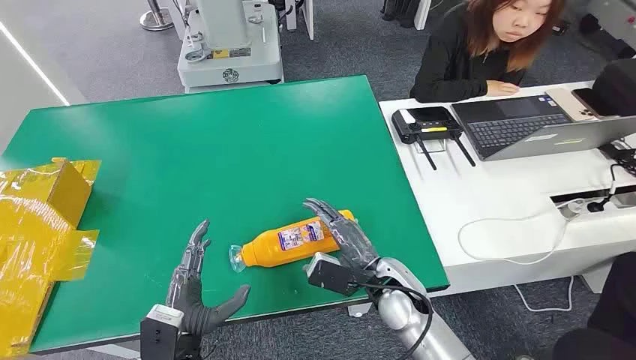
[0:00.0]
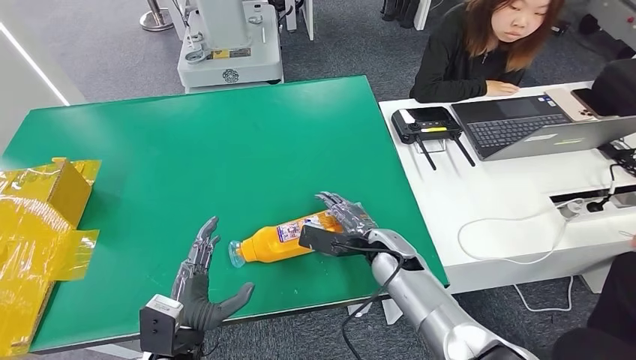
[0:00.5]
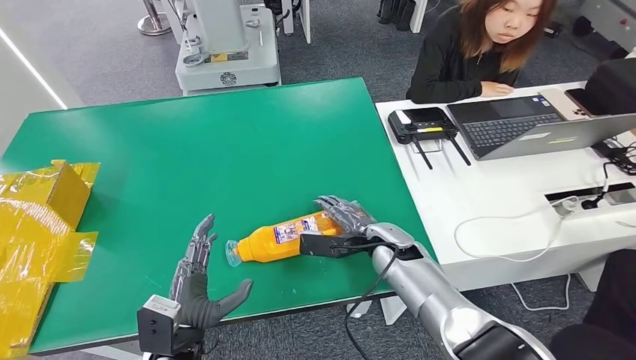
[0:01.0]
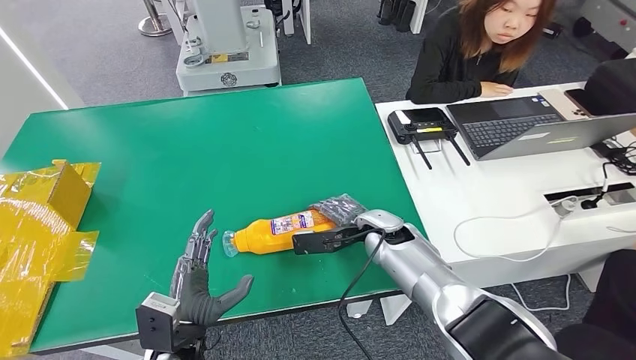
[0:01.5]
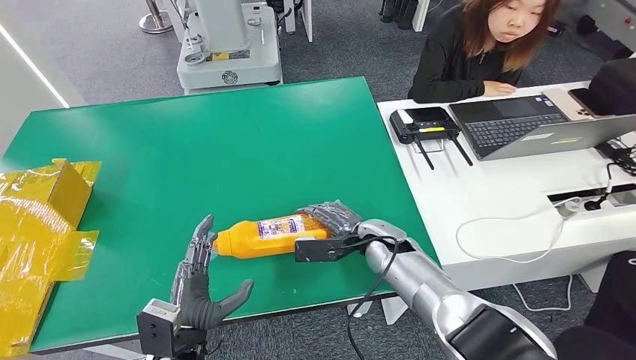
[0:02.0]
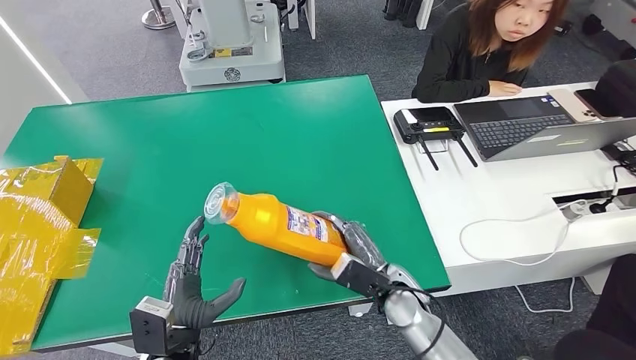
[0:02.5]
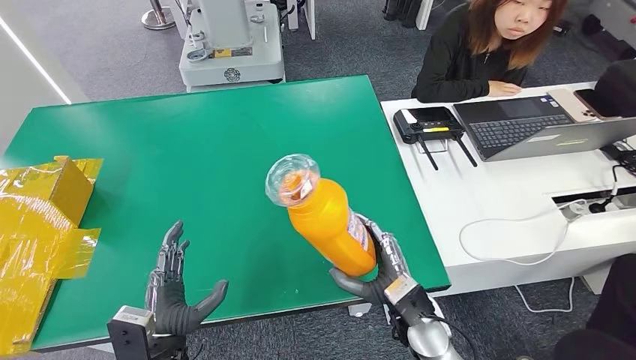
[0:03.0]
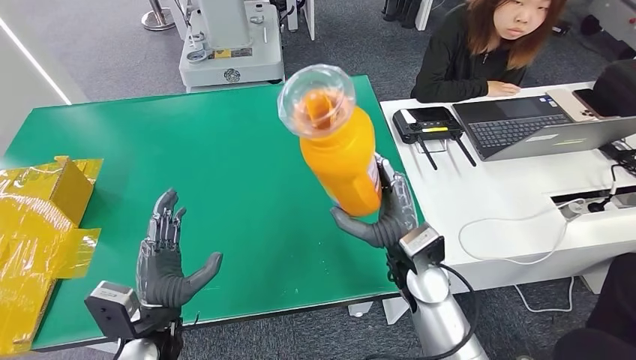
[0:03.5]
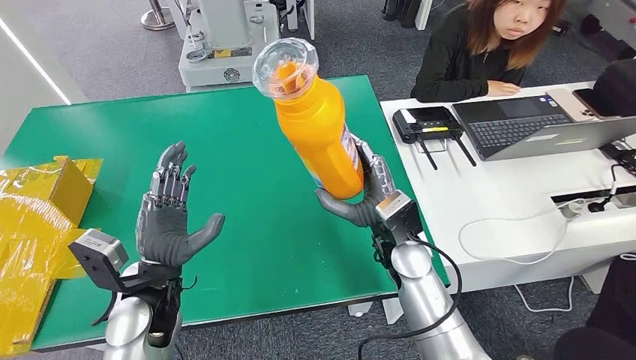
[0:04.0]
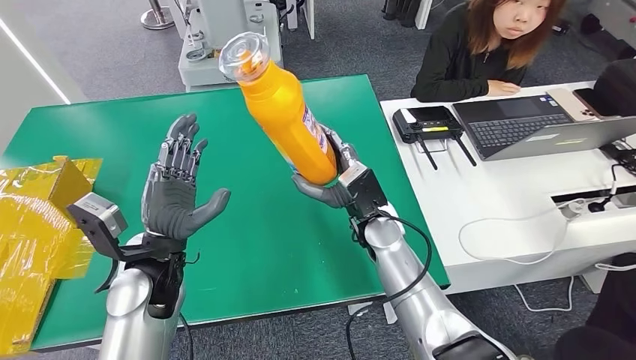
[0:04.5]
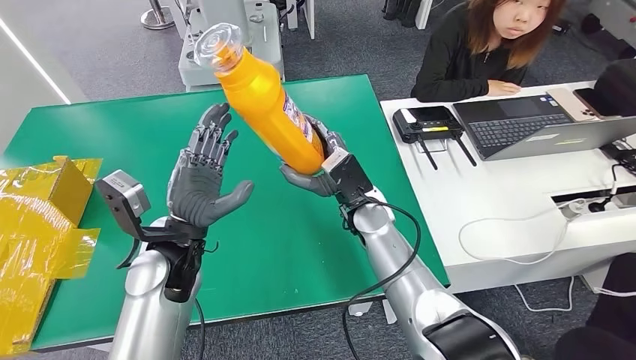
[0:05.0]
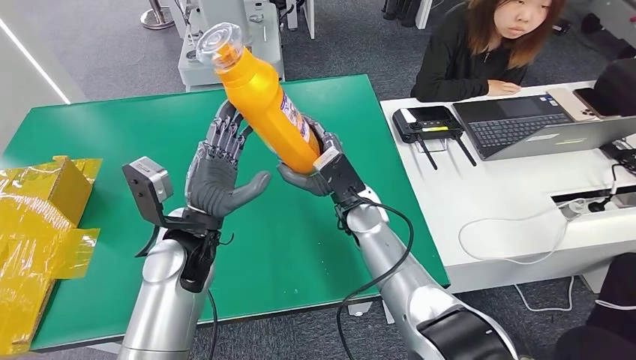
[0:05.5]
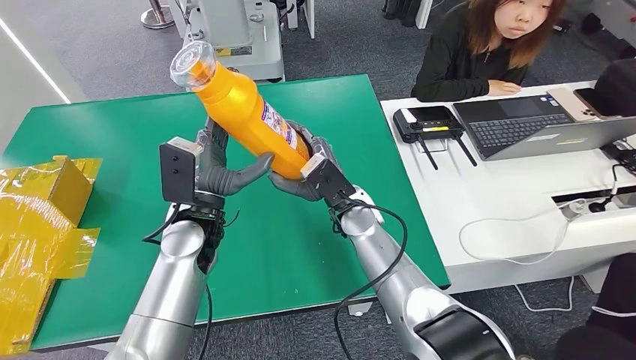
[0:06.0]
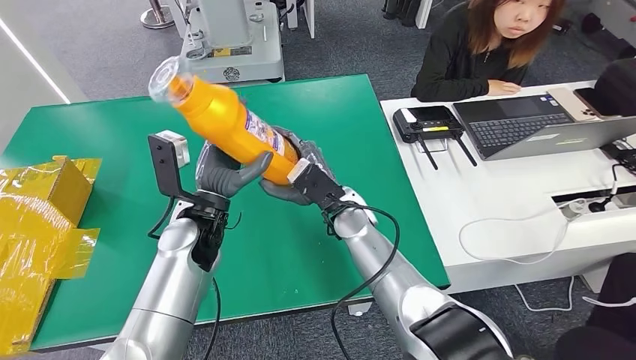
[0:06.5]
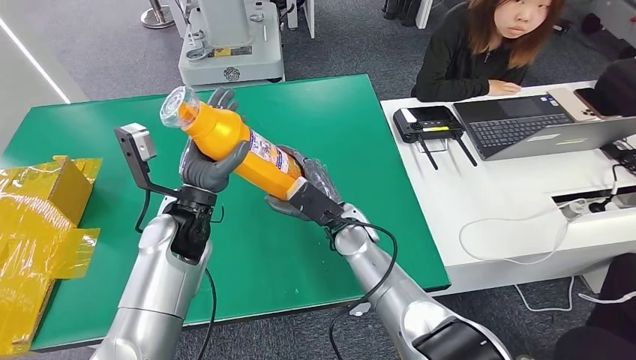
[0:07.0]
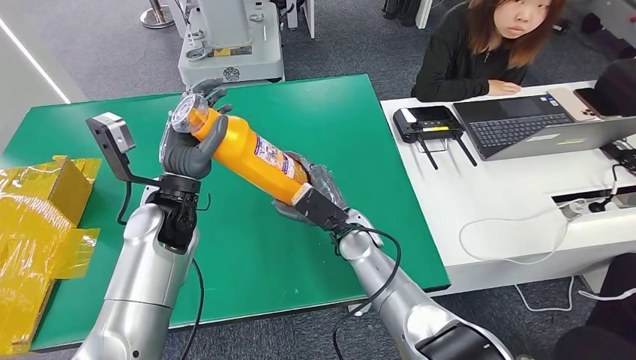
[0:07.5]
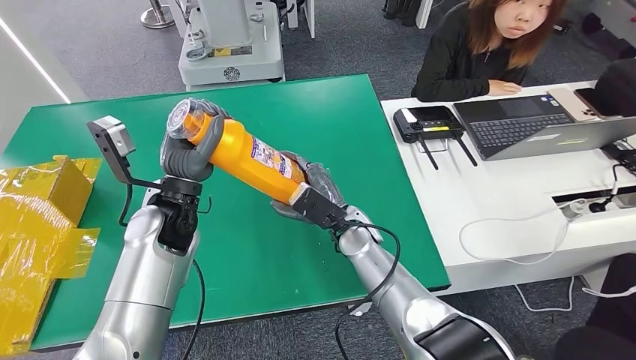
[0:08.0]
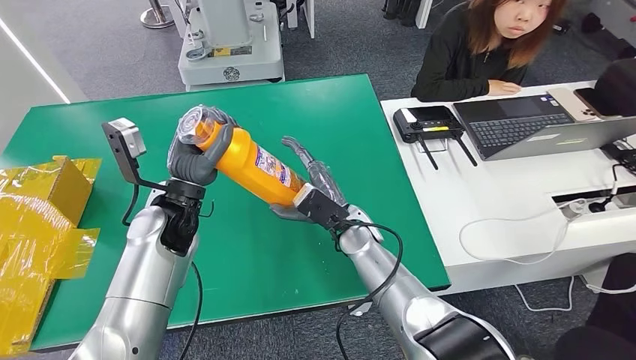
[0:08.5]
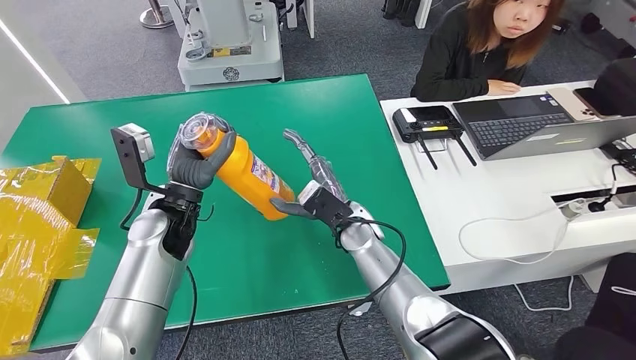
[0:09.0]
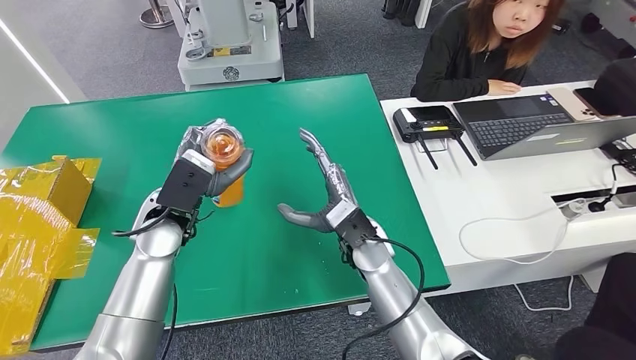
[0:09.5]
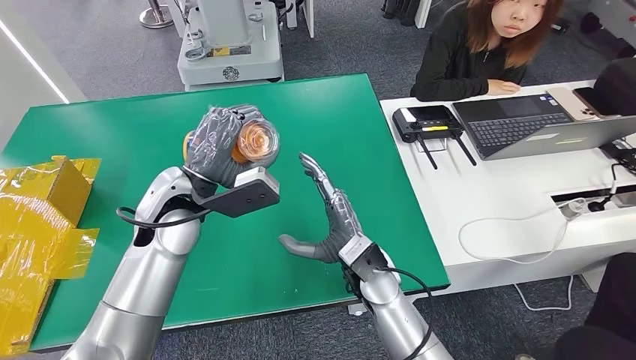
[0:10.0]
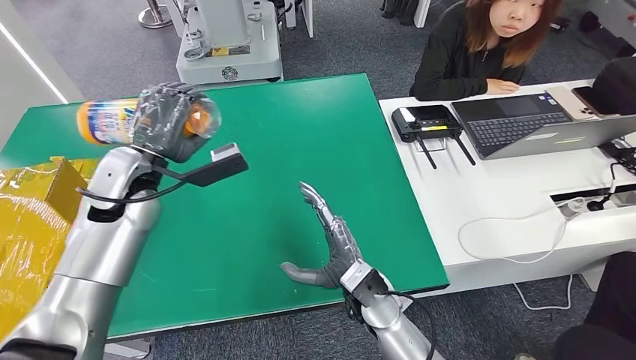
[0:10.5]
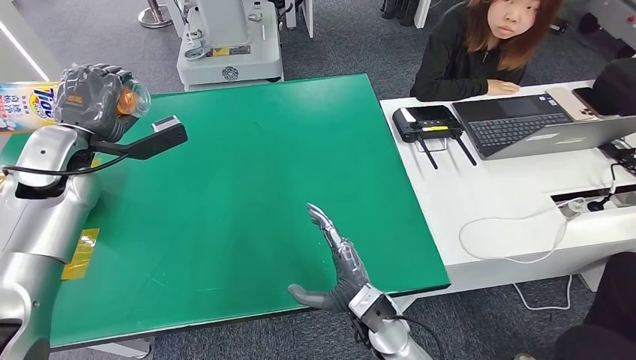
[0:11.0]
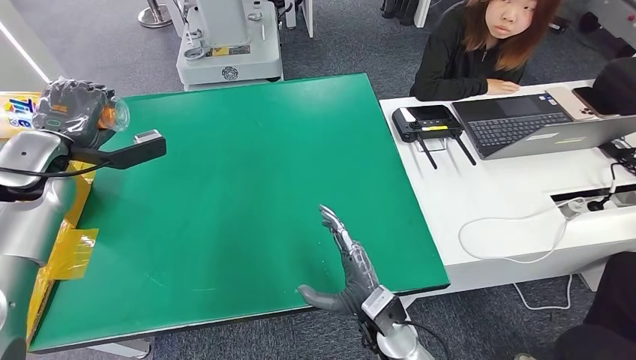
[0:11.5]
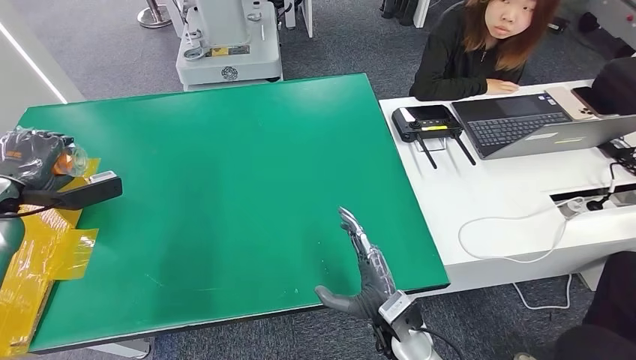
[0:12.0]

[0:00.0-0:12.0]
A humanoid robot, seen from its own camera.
Step, 0:00.0 to 0:03.0: Pick up the bottle from the table.
0:08.0 to 0:10.0: The right hand shifts roughly 5 cm backward.
0:10.0 to 0:12.0: The right hand moves backward and downward, some 10 cm, while the left hand heads to the left, covering approximately 30 cm.

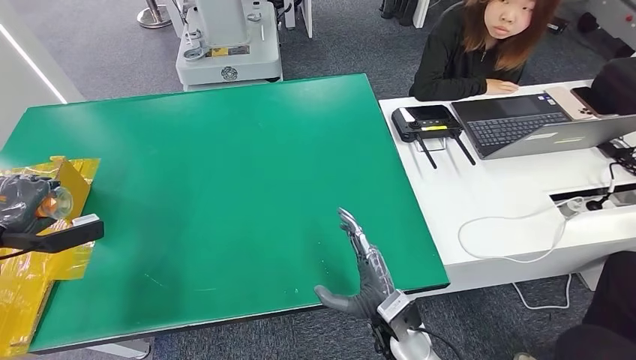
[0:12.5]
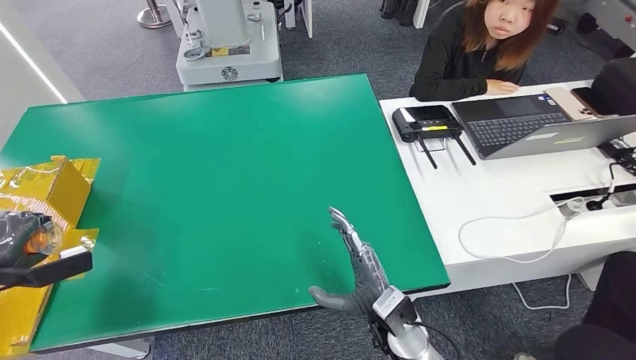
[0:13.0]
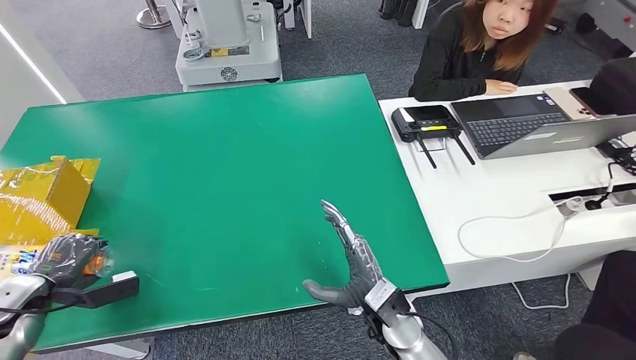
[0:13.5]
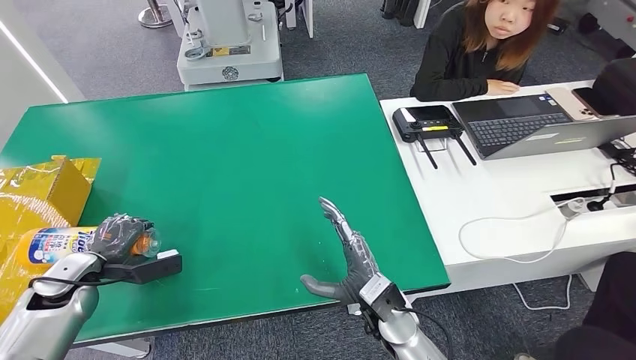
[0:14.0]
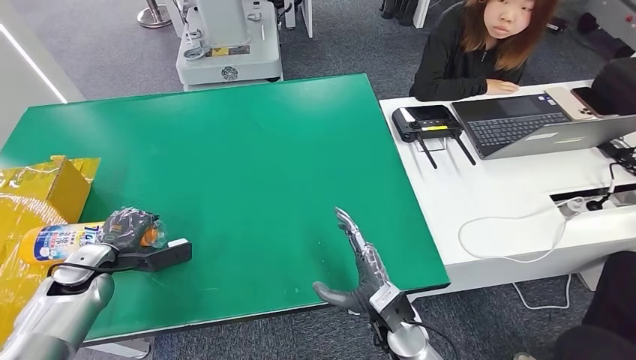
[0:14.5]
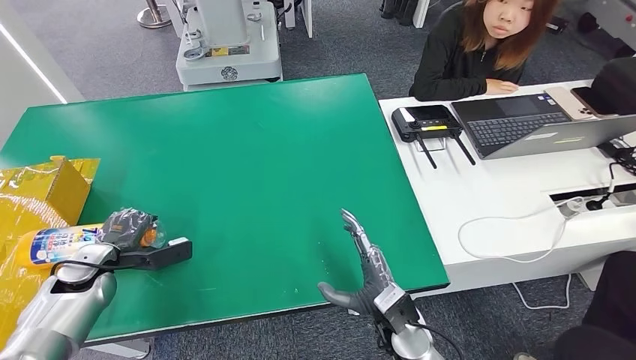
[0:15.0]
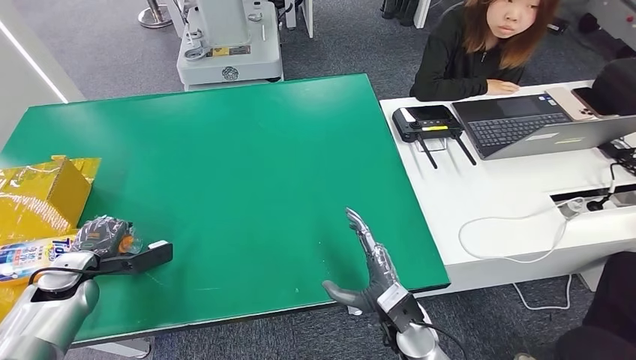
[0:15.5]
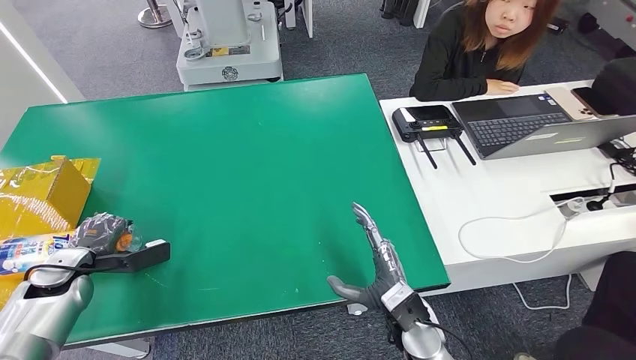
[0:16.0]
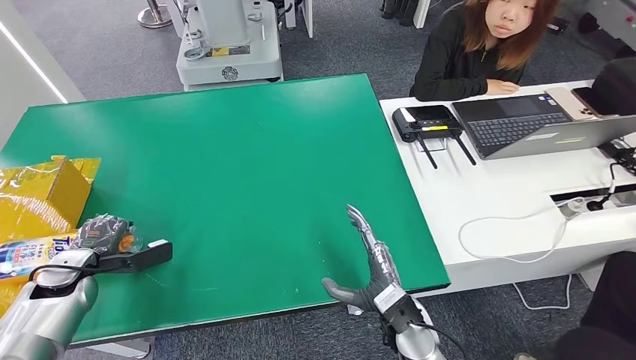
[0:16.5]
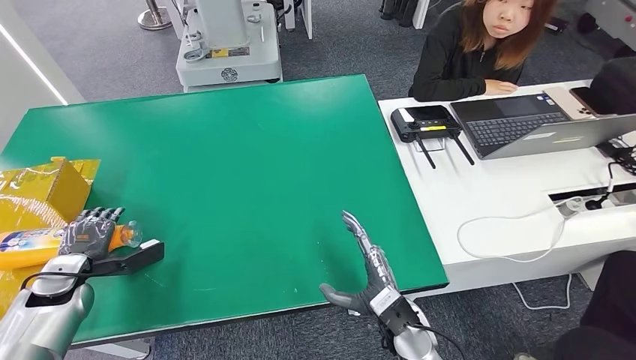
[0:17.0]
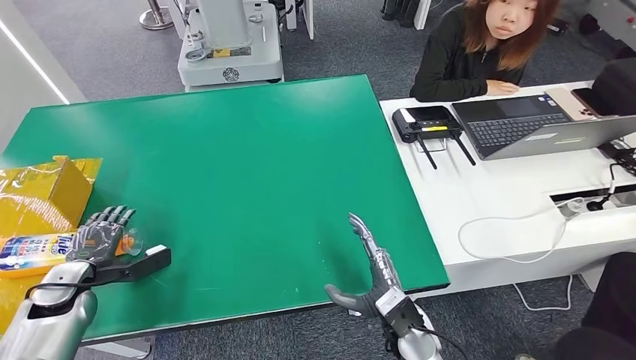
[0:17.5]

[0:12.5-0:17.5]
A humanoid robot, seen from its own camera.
Step, 0:12.5 to 0:17.5: Turn the bottle to the front side.
0:12.5 to 0:15.0: The left hand shifts about 15 cm to the right and downward.
0:15.0 to 0:17.5: The hands move only a little.

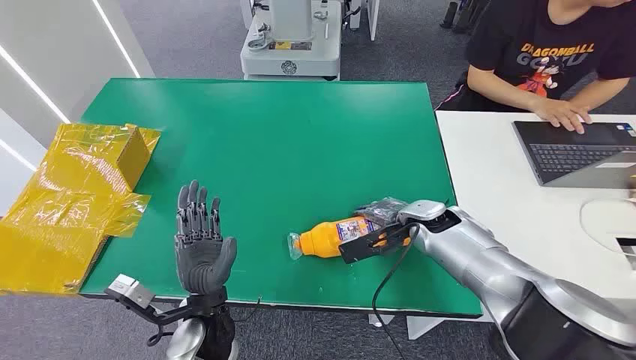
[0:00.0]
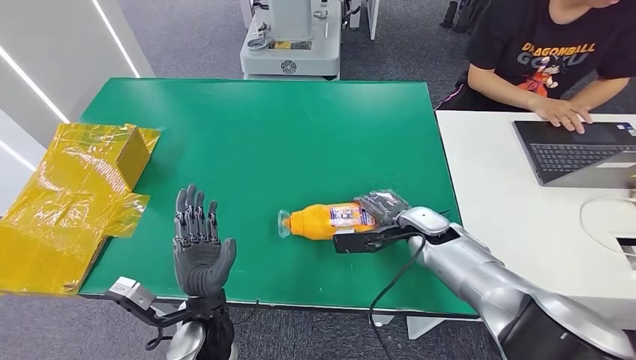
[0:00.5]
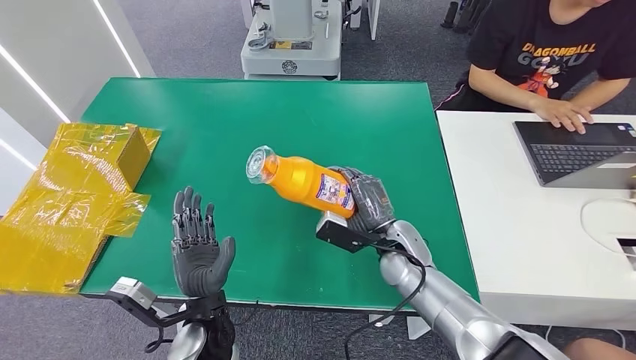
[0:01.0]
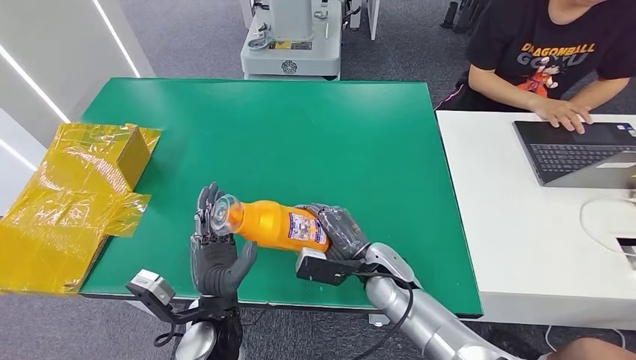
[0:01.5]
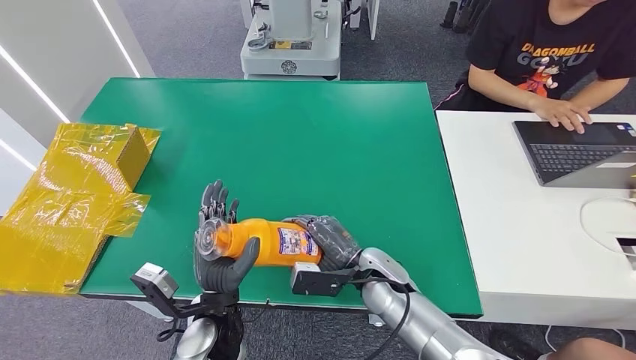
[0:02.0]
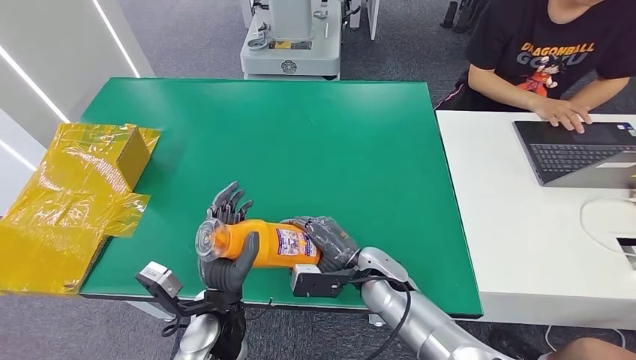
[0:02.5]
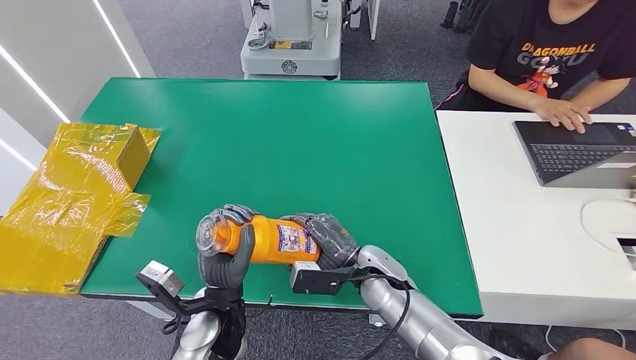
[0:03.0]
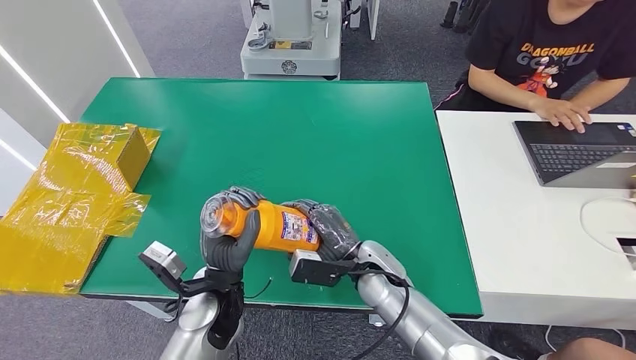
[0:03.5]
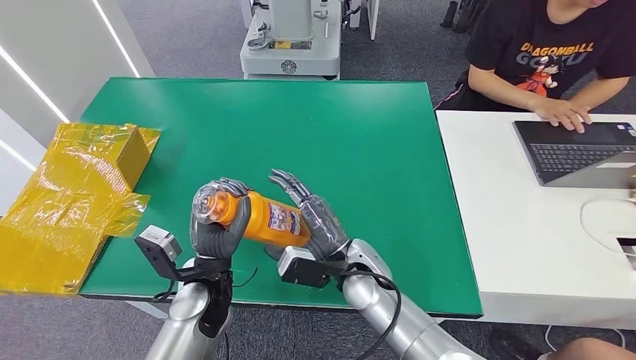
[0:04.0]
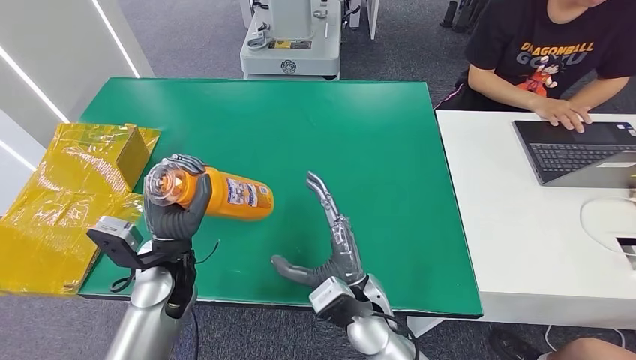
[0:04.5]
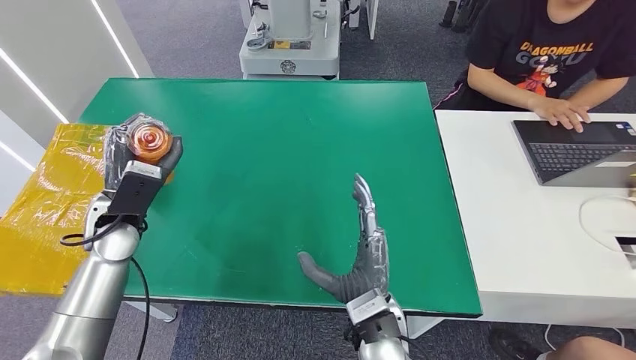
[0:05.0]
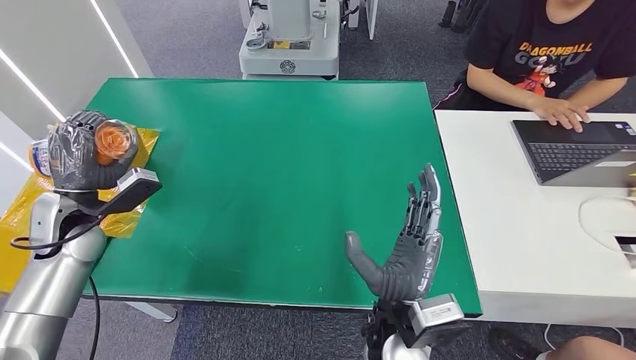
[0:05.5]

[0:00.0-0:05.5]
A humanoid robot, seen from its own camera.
Step, 0:00.0 to 0:03.0: Pick up the bottle from the table.
0:02.0 to 0:03.5: There are only small adjustments of the hands.
